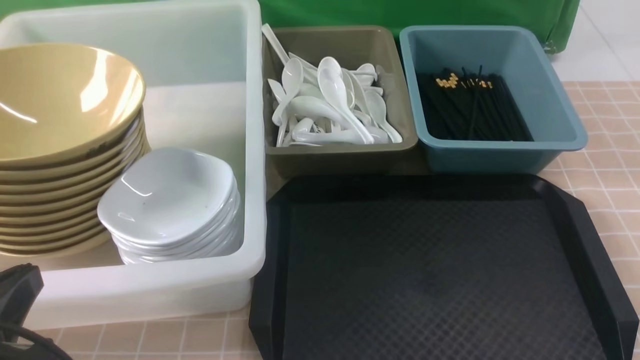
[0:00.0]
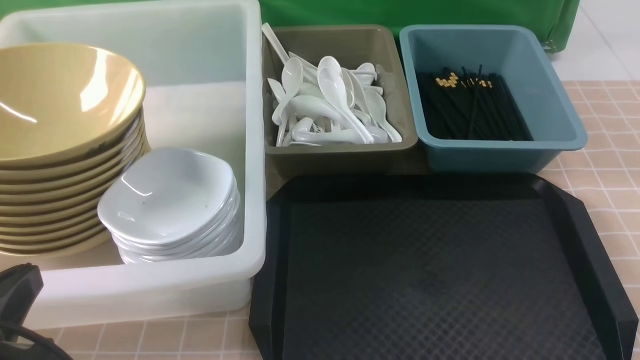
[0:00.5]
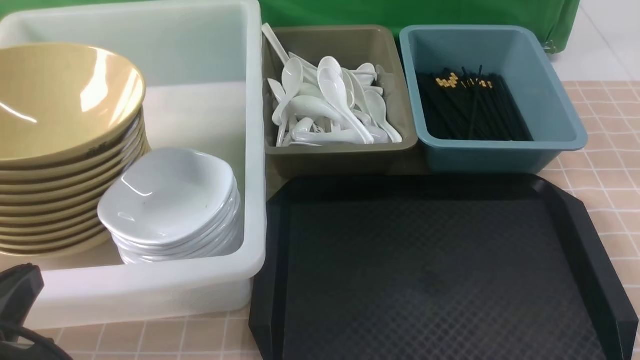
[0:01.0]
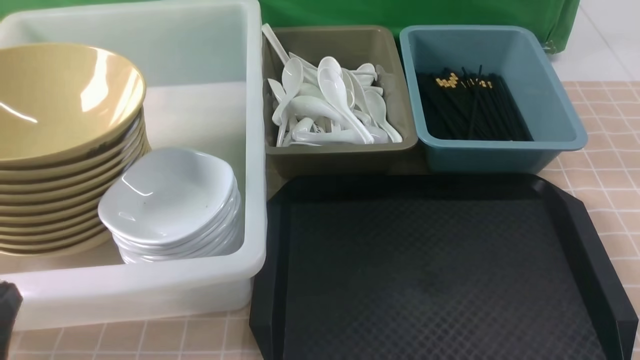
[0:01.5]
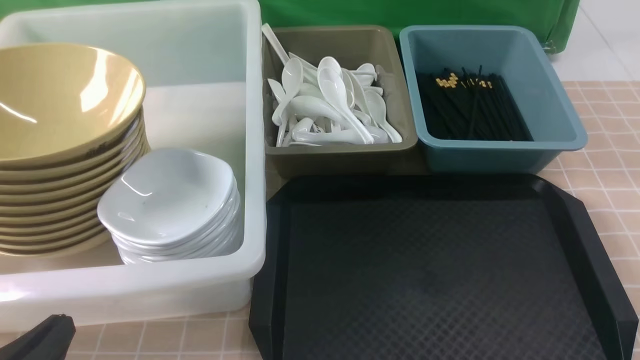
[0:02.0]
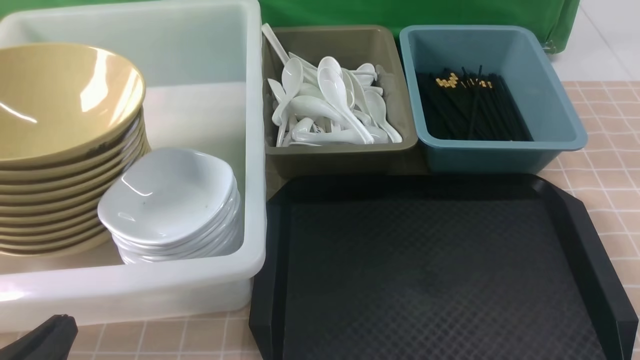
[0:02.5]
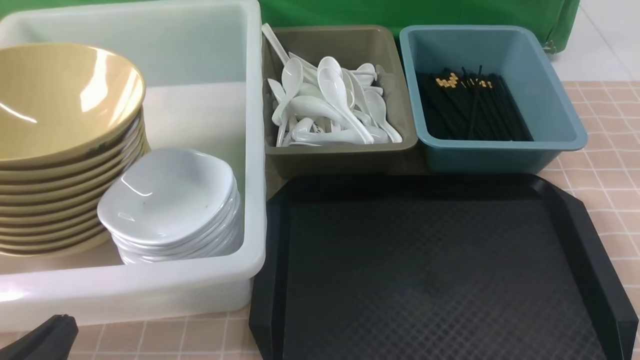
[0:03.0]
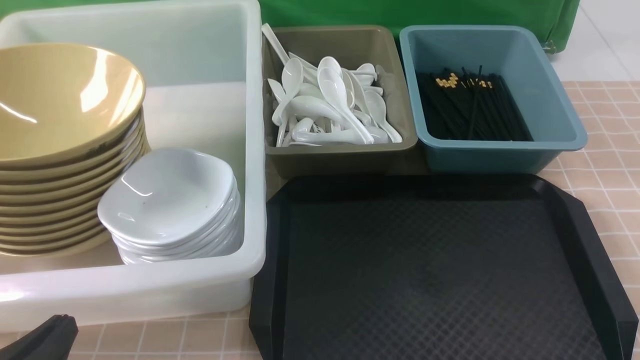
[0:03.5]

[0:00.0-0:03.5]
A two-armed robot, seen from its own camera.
Task of the whole recording: on brown table put chopsticks spoon bowls plates into blue grey white boxes.
0:00.0 to 0:02.0: The left gripper moves downward, approximately 10 cm.
0:02.0 to 0:03.5: Both grippers stay about where they are.
